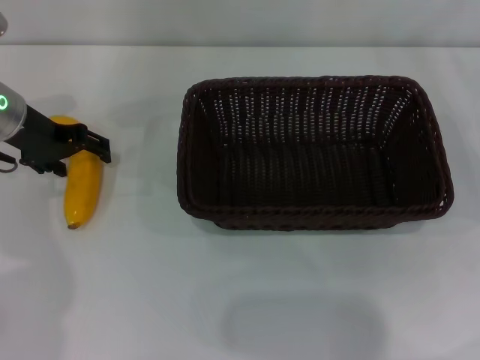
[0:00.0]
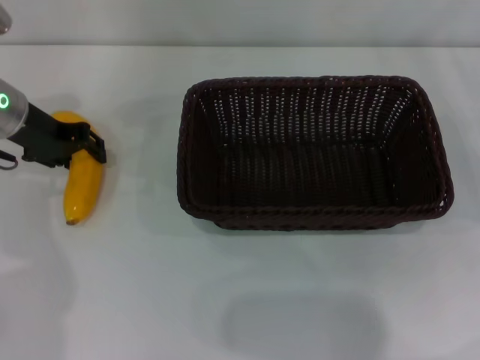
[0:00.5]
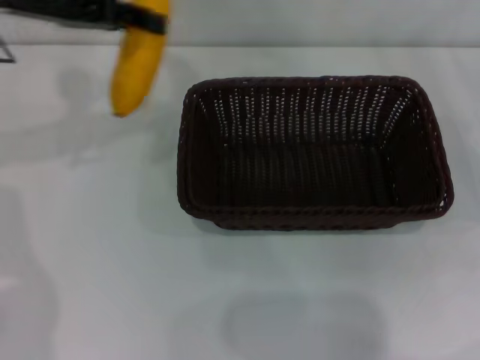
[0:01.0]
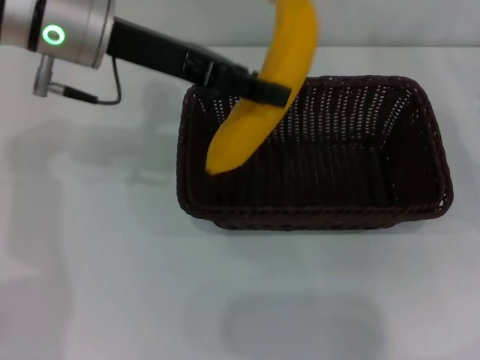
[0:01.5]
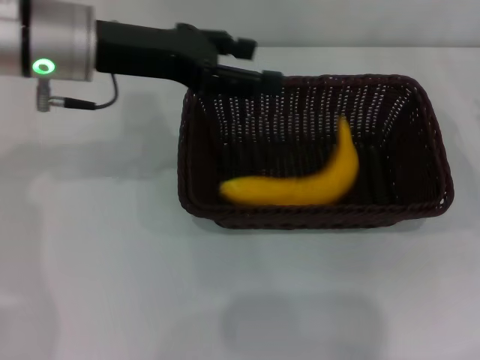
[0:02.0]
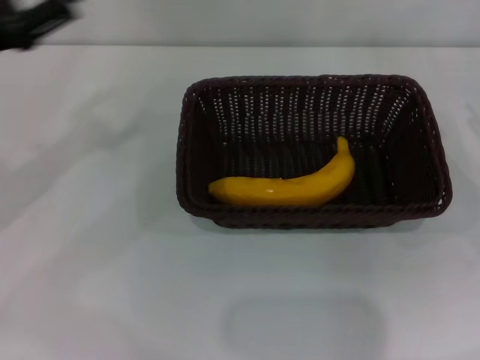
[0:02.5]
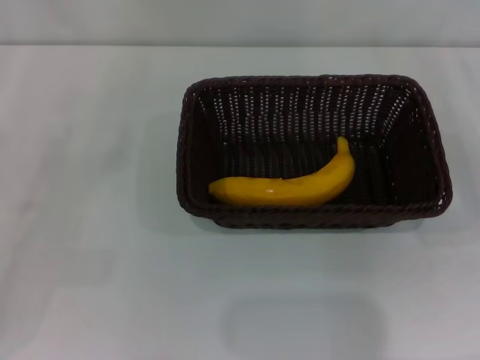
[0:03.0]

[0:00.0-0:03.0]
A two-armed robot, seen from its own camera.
Step, 0:01.0 to 0:01.5: Place the banana into the dark basket with the left gripper.
0:00.0 to 0:01.5: The left gripper moves upward and to the right, about 15 cm, and closes up.
0:01.5 to 0:03.0: The left gripper moves to the left, downward and backward, some 30 cm, and opens.
